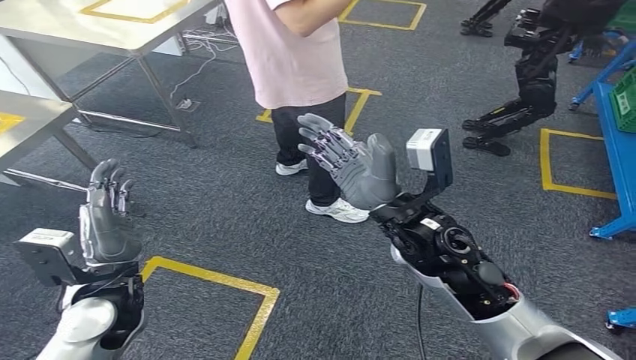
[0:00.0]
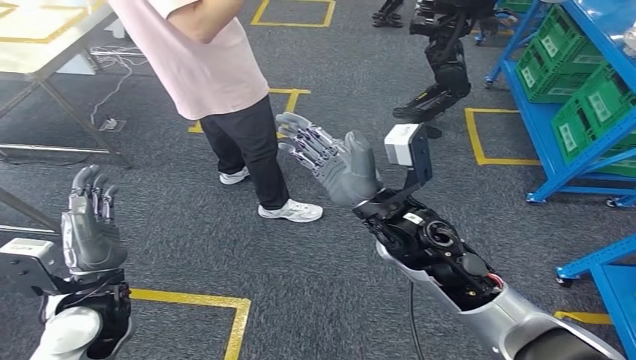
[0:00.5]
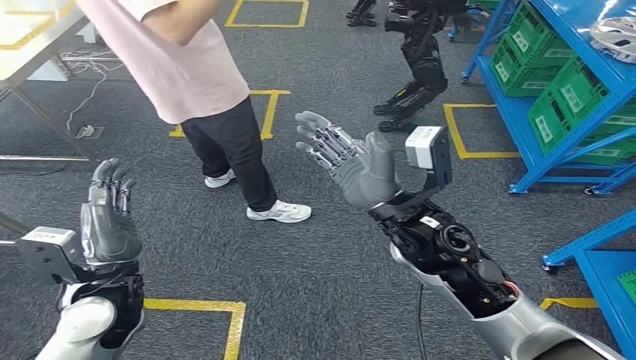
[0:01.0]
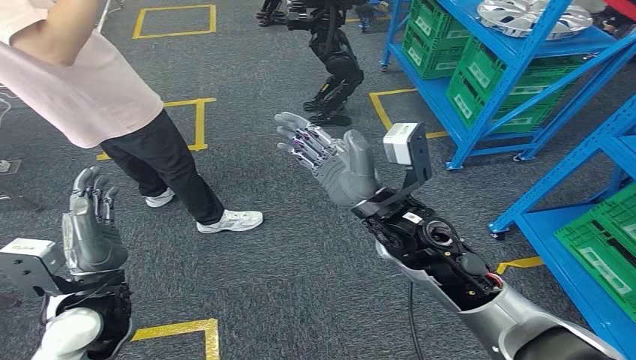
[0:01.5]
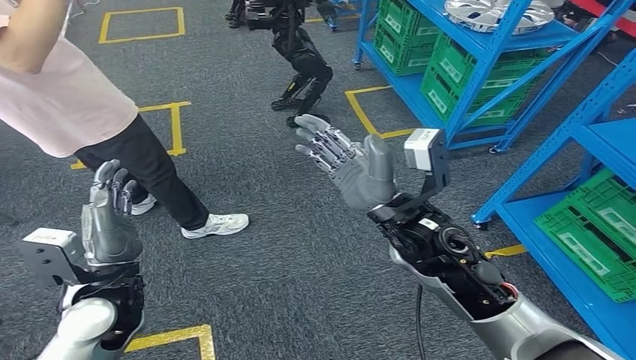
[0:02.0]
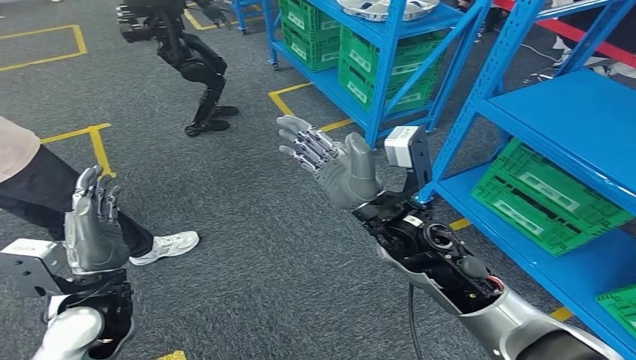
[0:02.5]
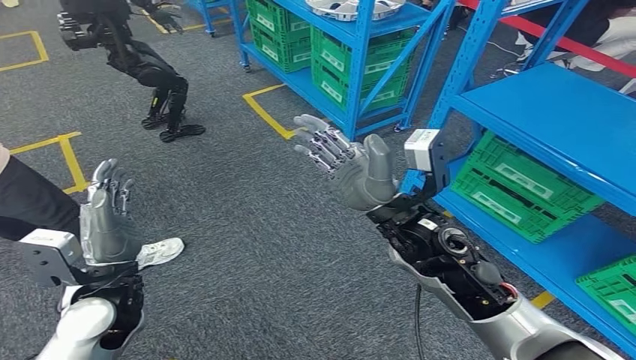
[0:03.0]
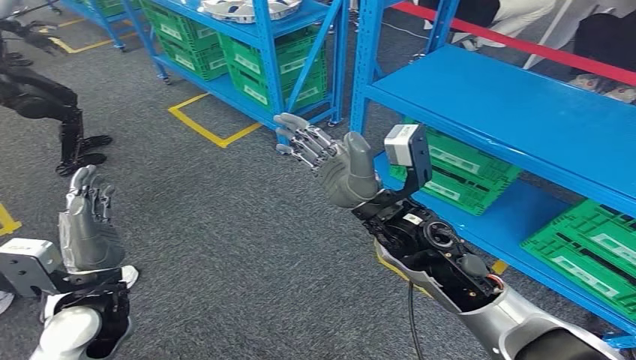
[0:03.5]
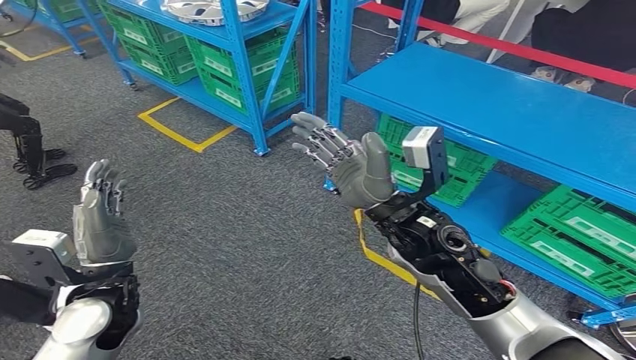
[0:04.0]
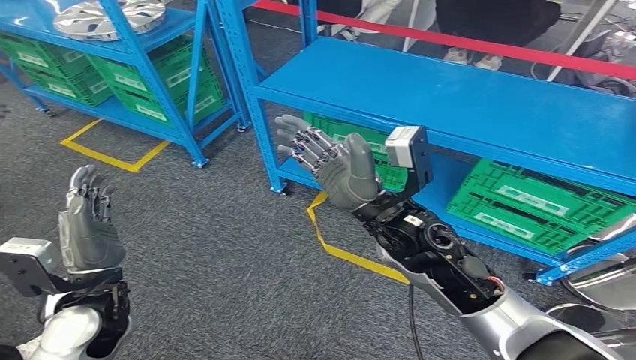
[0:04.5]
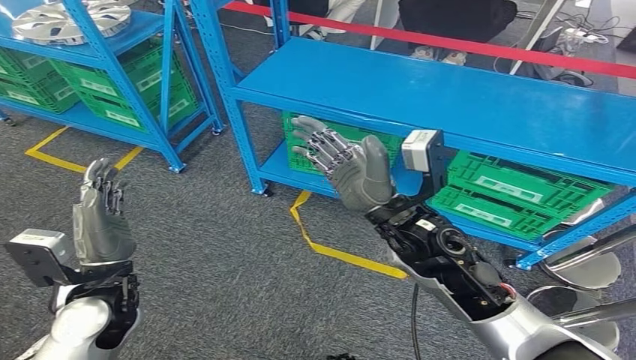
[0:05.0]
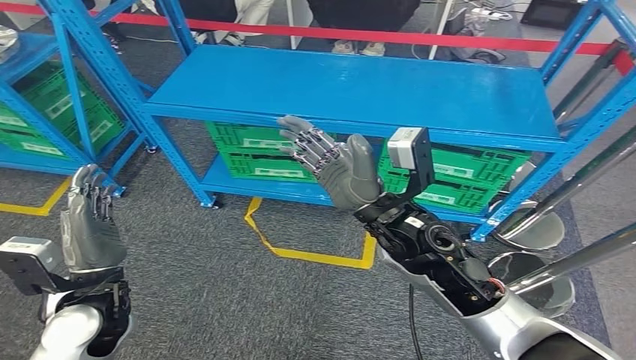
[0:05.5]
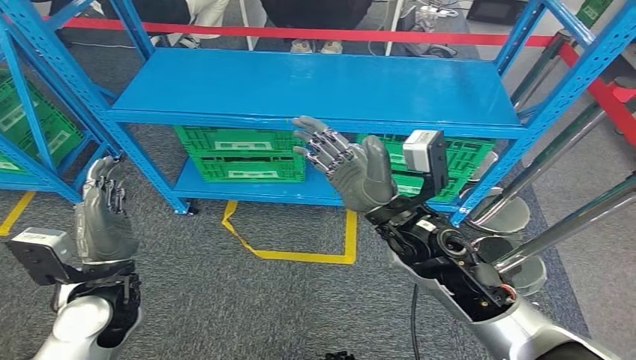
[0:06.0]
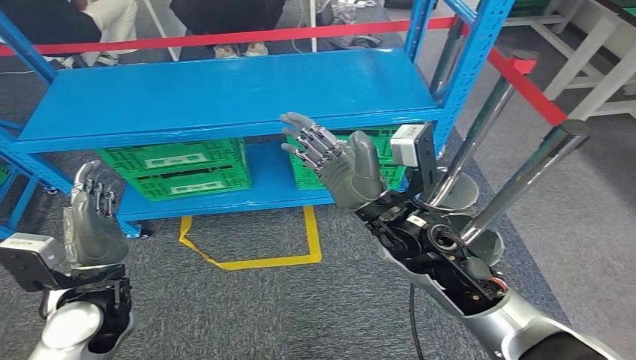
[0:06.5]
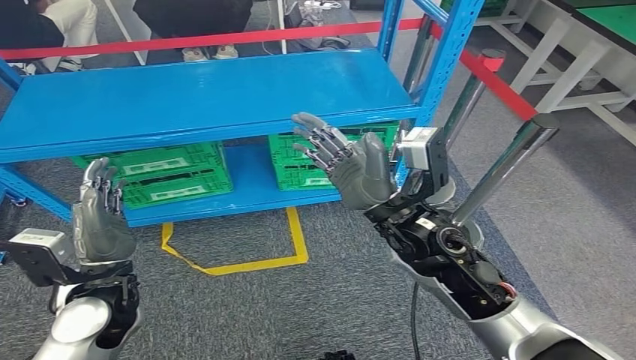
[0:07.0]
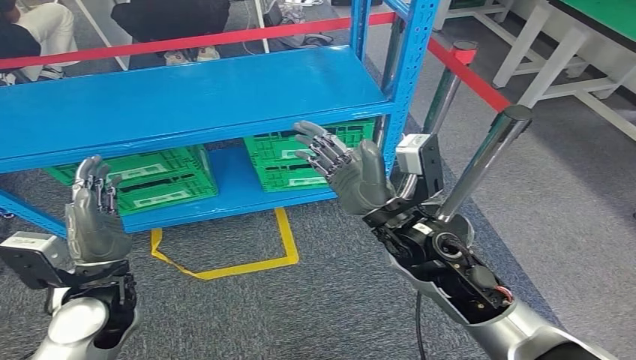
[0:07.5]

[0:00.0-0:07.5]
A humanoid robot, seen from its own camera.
Step, 0:00.0 to 0:07.5: Return to the initial position at the workbench.
